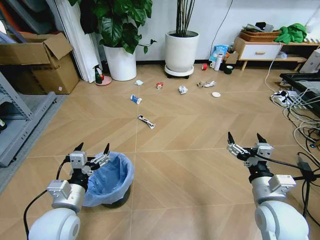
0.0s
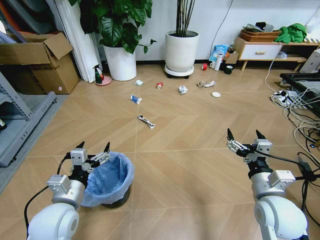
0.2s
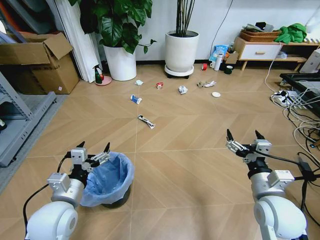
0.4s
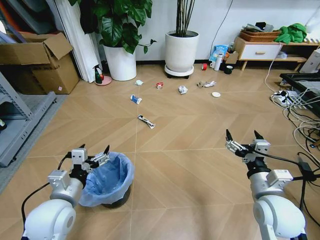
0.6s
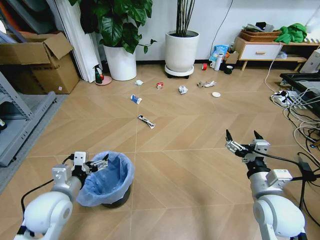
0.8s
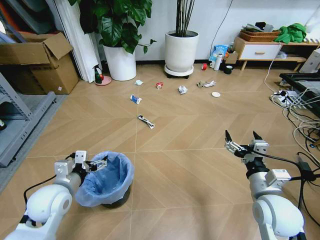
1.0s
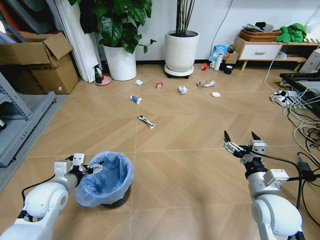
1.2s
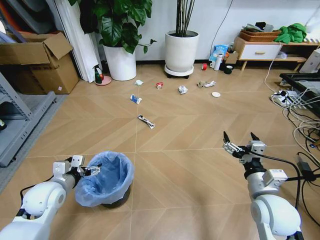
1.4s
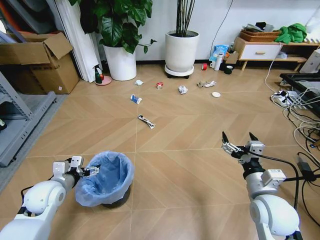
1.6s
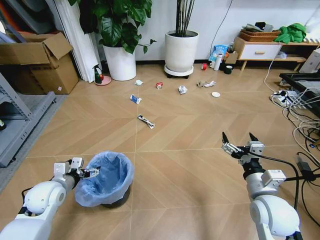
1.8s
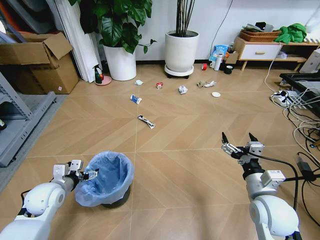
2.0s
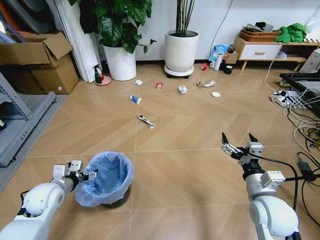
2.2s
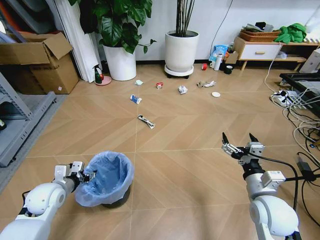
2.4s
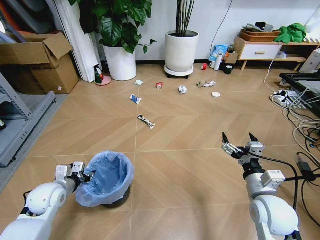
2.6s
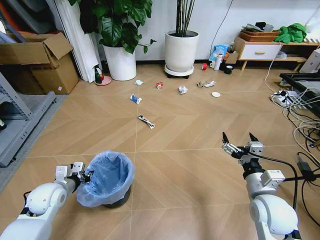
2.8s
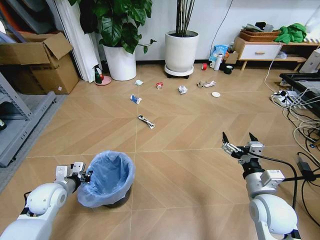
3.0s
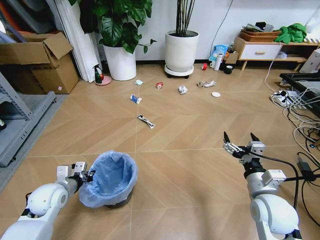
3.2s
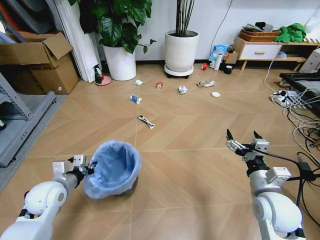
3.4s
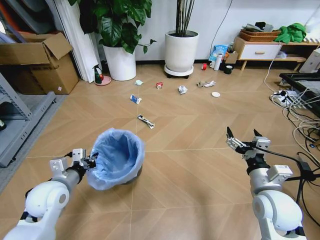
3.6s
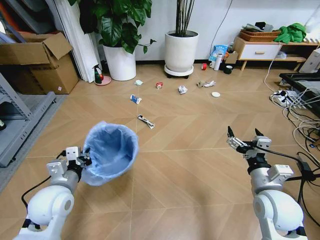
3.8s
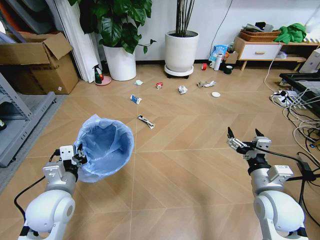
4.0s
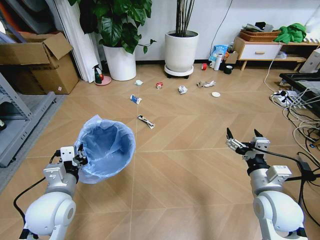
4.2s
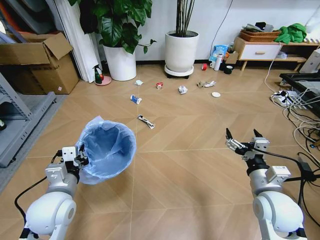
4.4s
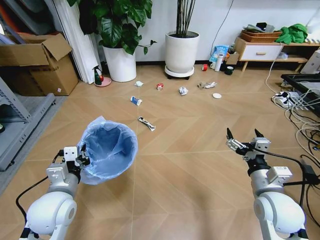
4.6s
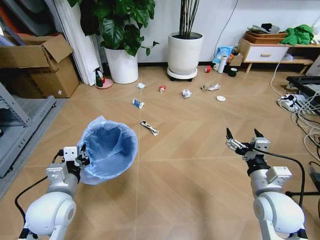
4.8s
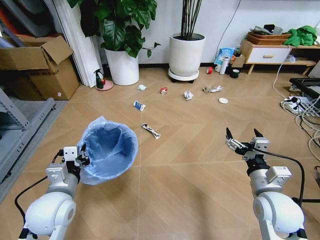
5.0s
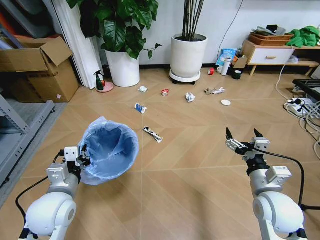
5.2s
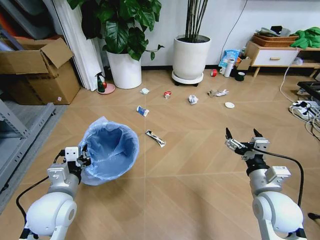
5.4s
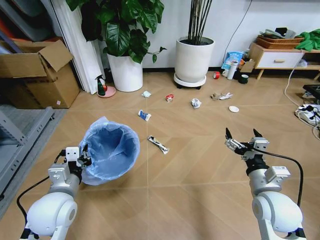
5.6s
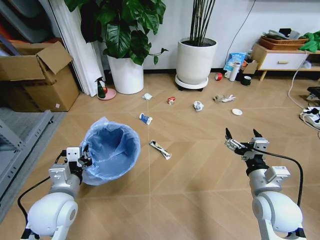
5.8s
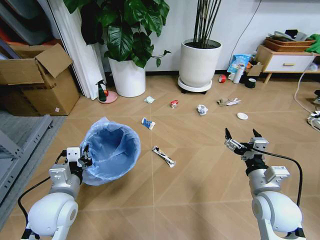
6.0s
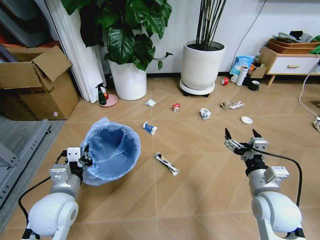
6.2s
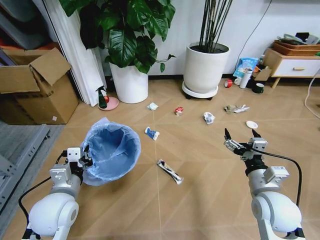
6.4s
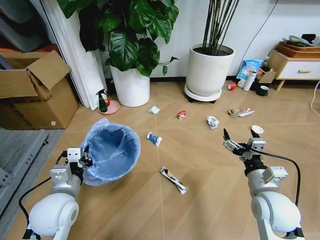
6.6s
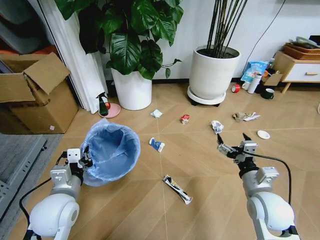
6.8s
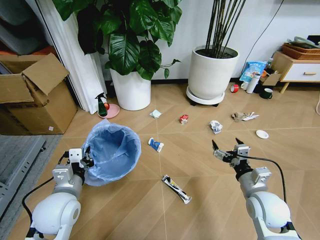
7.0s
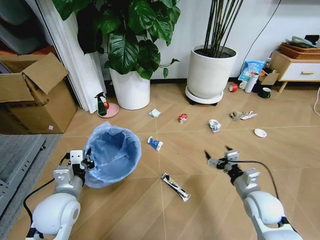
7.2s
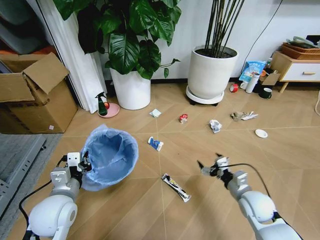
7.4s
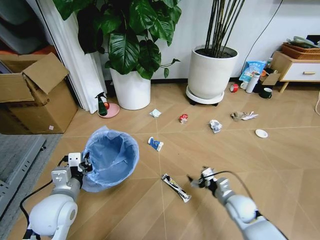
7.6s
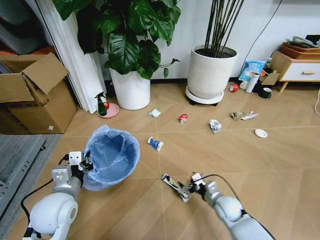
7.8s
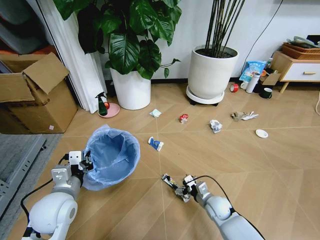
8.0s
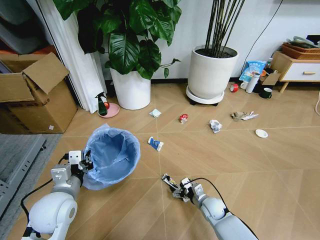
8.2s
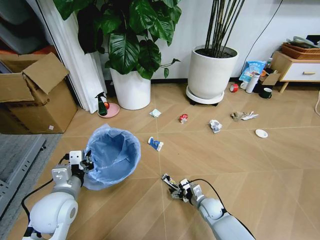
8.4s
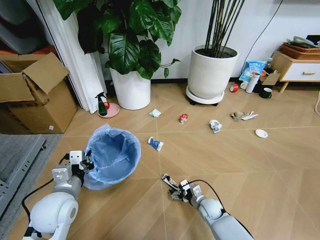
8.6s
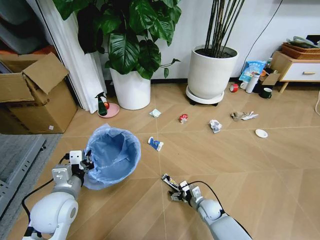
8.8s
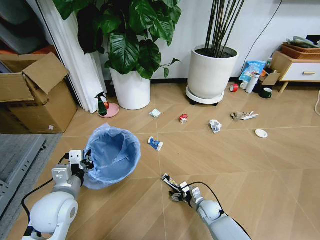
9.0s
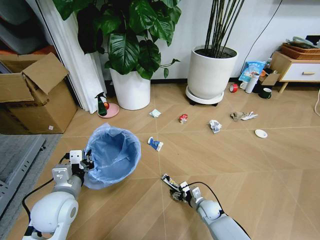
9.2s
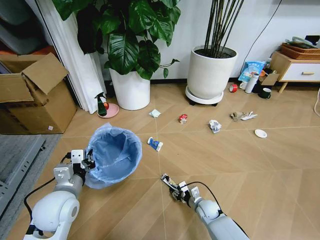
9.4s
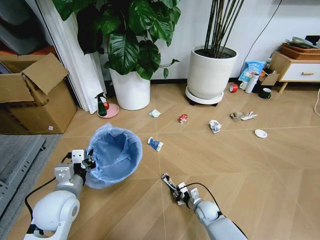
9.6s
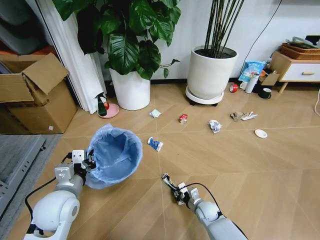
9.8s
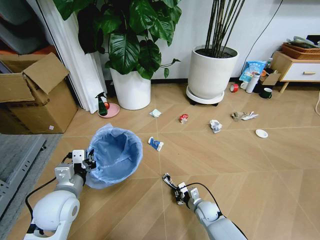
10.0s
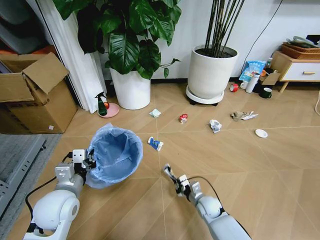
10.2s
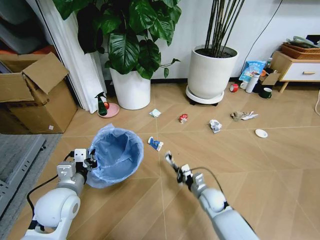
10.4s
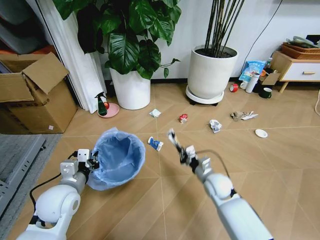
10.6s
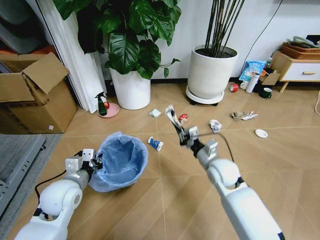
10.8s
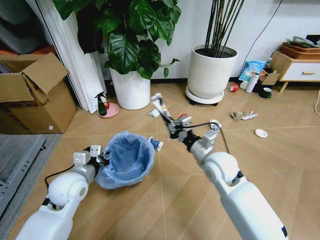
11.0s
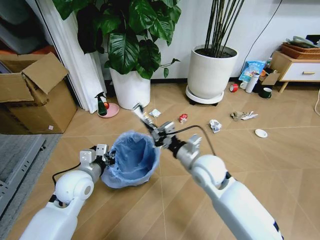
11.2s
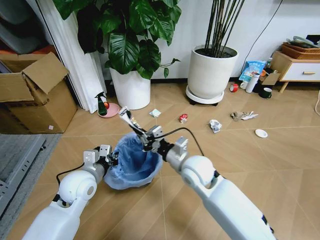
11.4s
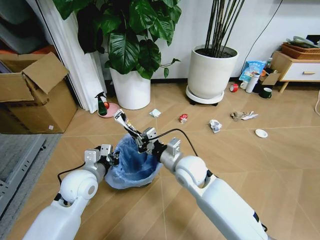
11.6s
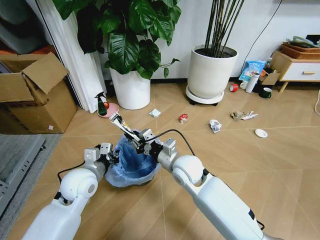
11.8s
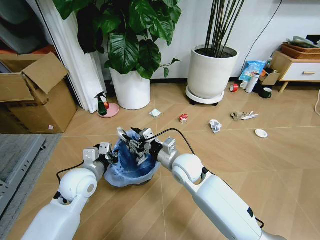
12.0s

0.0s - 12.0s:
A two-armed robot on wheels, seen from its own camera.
Task of the whole recording: Pick up the trash bin and place the garbage on the floor into it.
1.6s - 3.0s: The left gripper closes up.
3.0s - 4.4s: The left gripper moves to the right, upward and backward, roughly 15 cm.
6.0s - 7.6s: The right gripper is displaced downward by about 15 cm.
7.6s - 9.0s: The right gripper shifts approximately 15 cm downward and to the left.
9.0s - 10.4s: The right gripper is displaced upward by approximately 10 cm, and closes up.
10.4s - 12.0s: The left gripper moves forward, some 5 cm. Meanwhile the right gripper travels upward and to the left by roughly 25 cm, and opens.

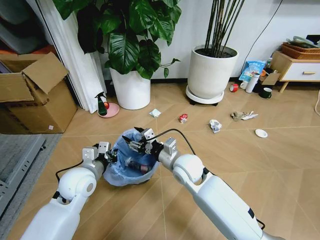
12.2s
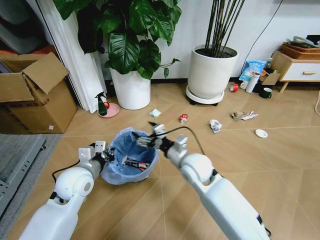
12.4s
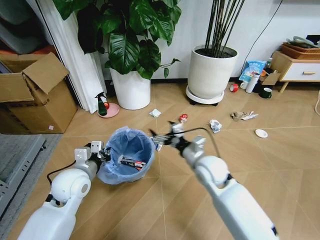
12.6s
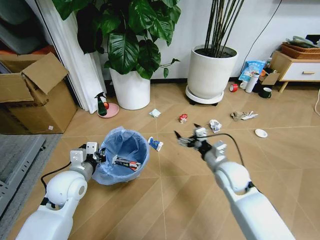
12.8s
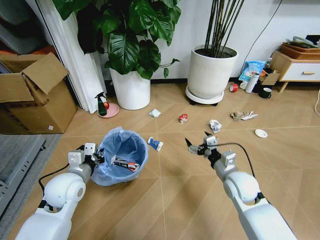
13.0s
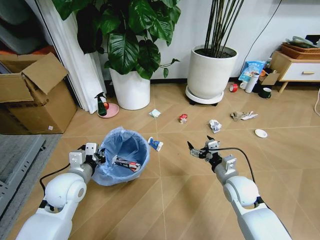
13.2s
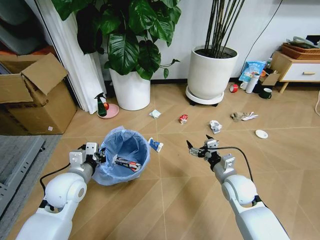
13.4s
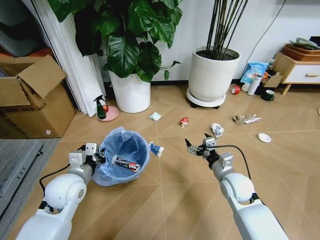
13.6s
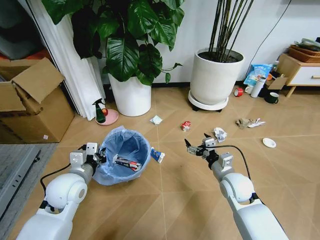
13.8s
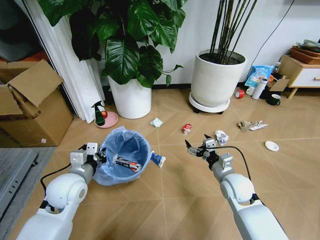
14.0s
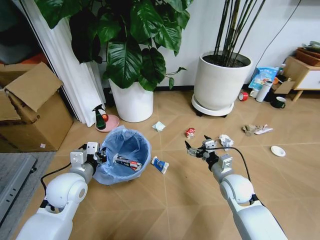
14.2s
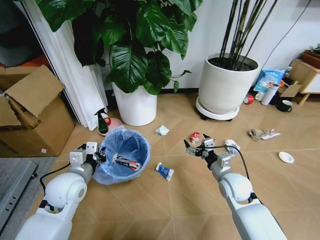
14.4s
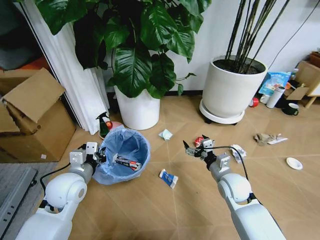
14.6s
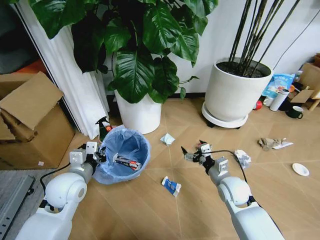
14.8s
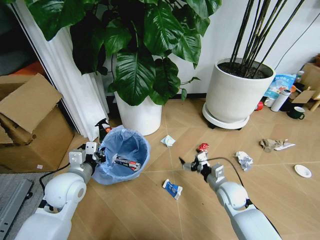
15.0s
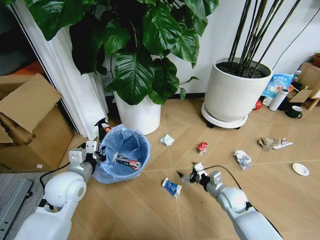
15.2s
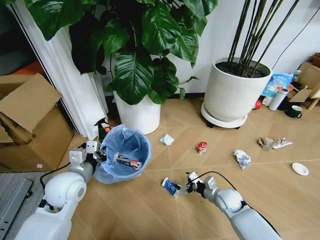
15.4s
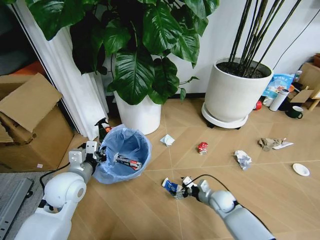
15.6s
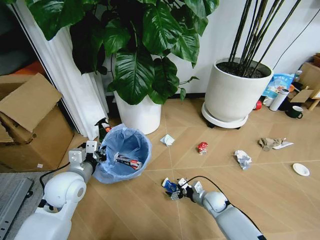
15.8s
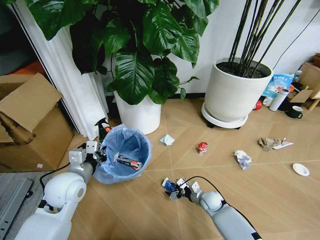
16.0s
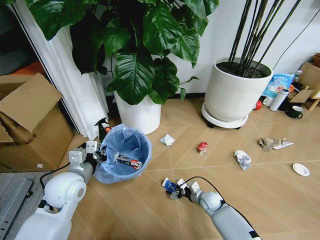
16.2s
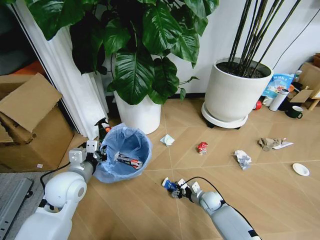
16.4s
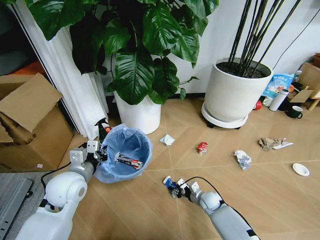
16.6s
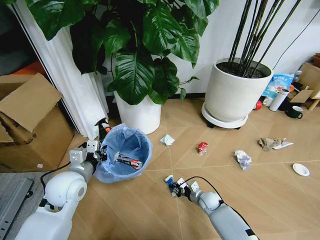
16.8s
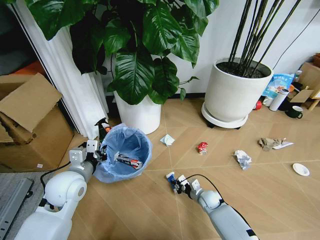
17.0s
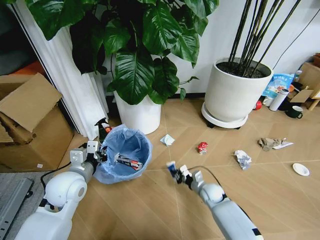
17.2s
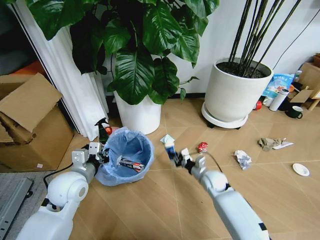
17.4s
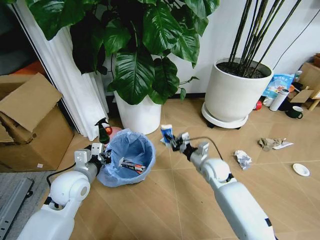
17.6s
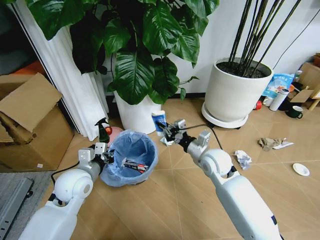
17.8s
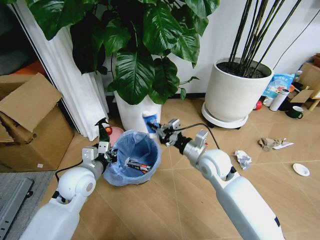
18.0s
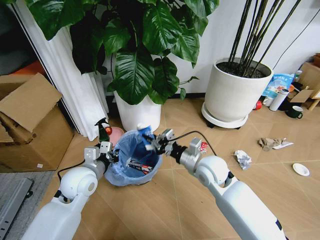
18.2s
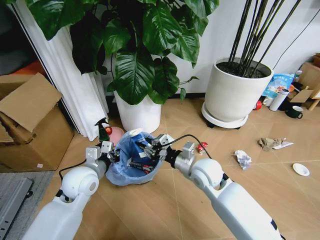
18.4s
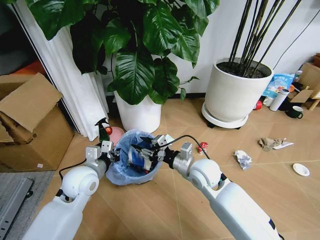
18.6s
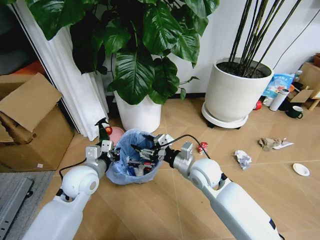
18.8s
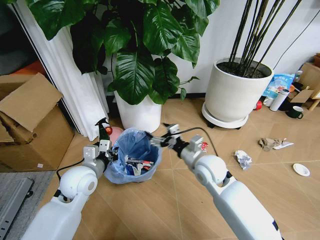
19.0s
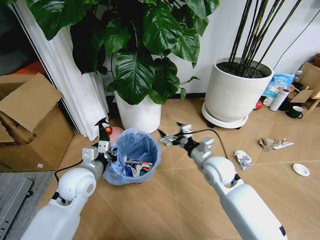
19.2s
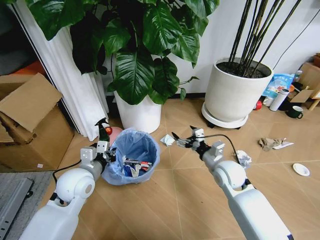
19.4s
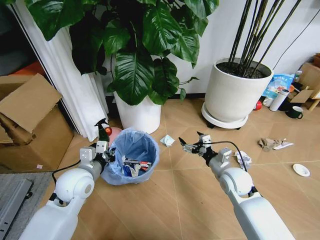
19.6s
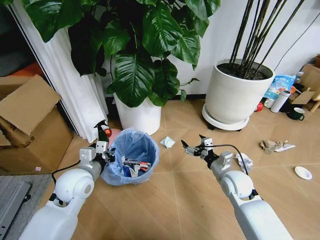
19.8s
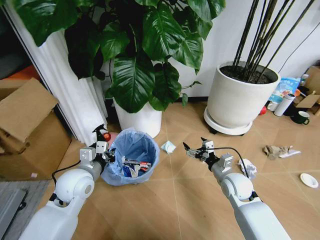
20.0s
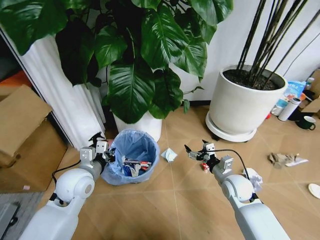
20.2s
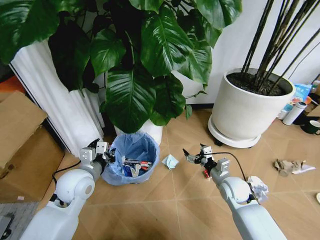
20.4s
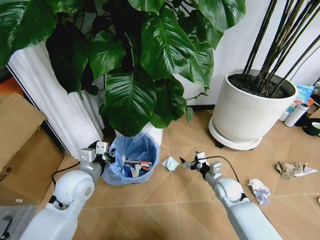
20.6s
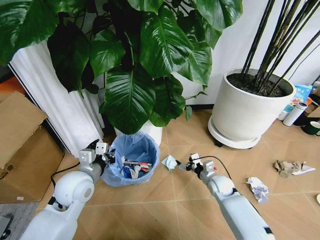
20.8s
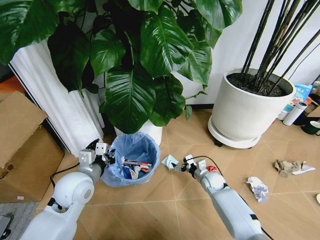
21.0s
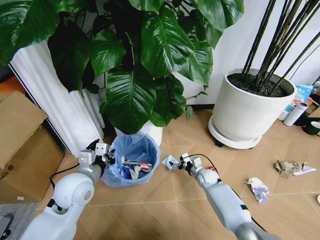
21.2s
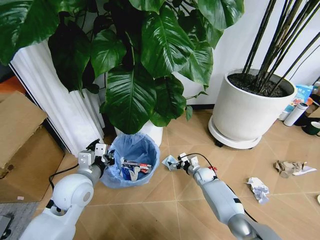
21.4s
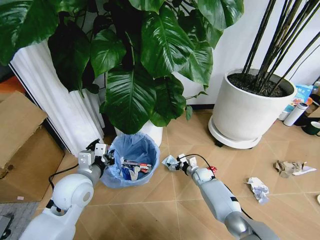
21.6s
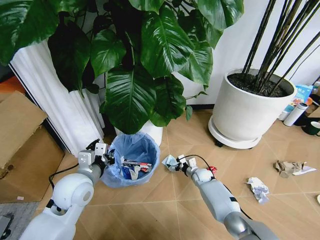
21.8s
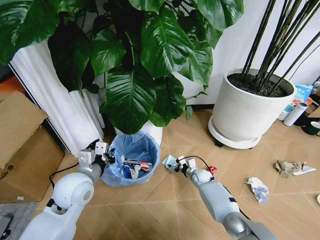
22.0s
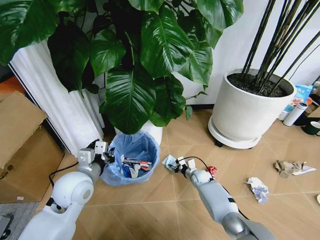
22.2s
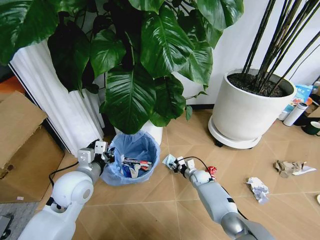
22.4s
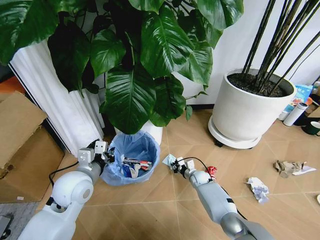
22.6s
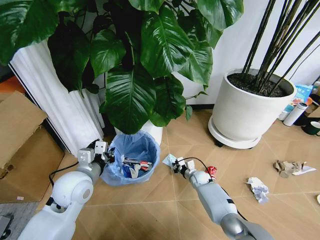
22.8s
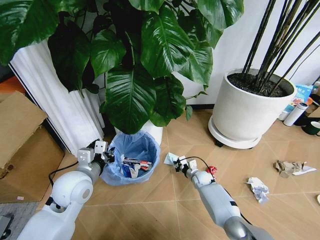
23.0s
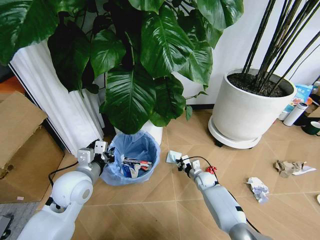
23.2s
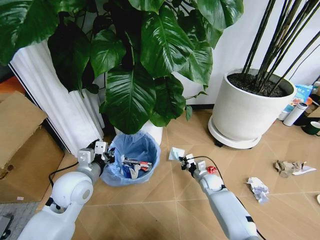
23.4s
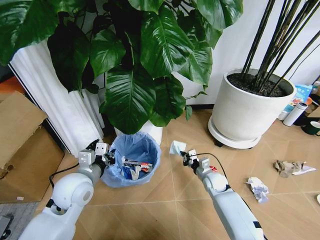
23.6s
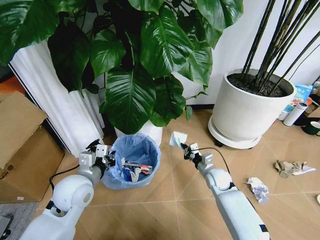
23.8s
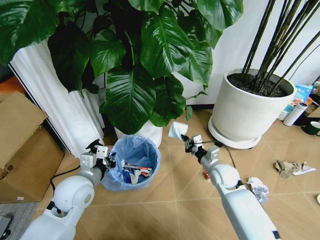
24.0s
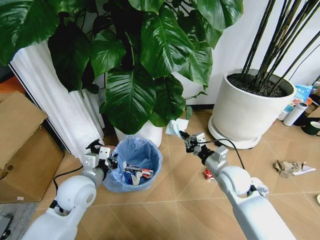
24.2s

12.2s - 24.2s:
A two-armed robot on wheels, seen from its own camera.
Task of the whole recording: Pick up the trash bin and place the garbage on the floor into it.
12.2s - 13.8s: The right gripper travels to the right by about 15 cm.
13.8s - 15.2s: The right gripper goes roughly 10 cm downward.
15.2s - 16.6s: The right gripper moves downward, roughly 10 cm, and closes up.
16.6s - 18.2s: The right gripper travels upward by roughly 30 cm, and closes its fingers.
18.2s - 19.8s: The right gripper goes approximately 15 cm to the right and downward, and opens.
19.8s - 21.2s: The right gripper is displaced downward and forward by approximately 20 cm.
21.2s - 22.6s: The right gripper closes its fingers.
22.6s - 24.2s: The right gripper heads upward and backward, covering some 25 cm.
